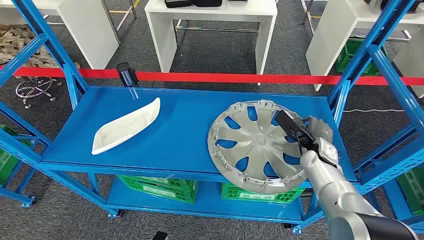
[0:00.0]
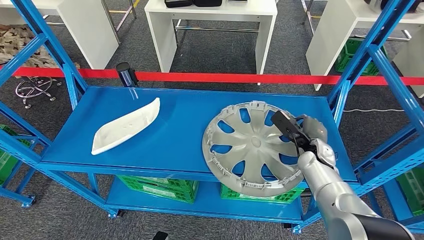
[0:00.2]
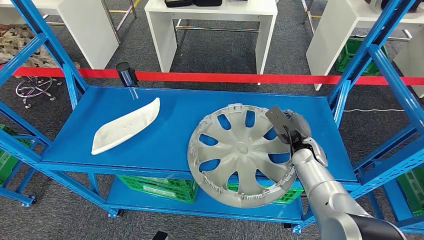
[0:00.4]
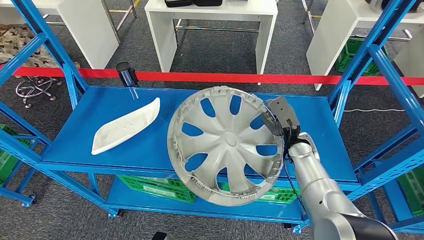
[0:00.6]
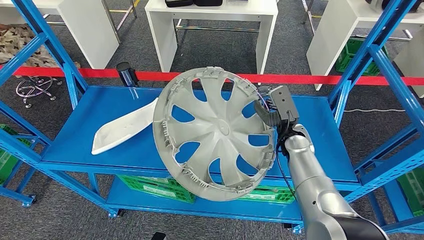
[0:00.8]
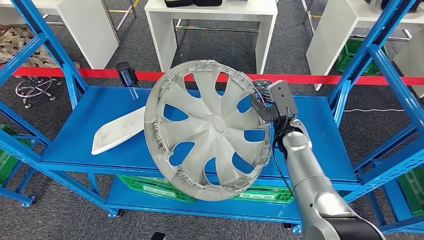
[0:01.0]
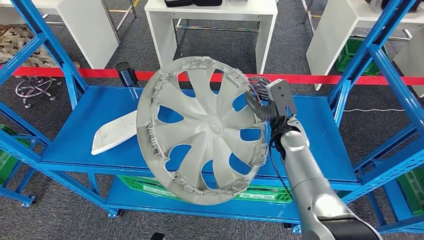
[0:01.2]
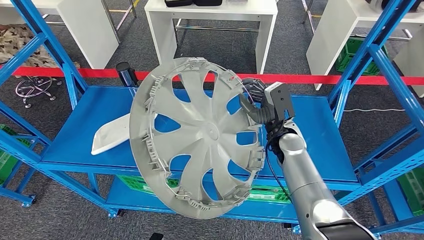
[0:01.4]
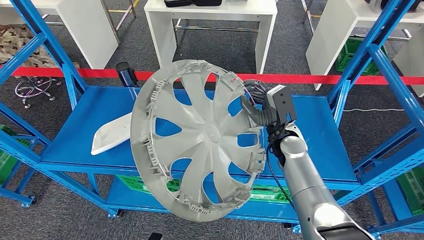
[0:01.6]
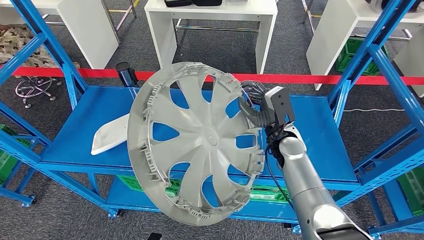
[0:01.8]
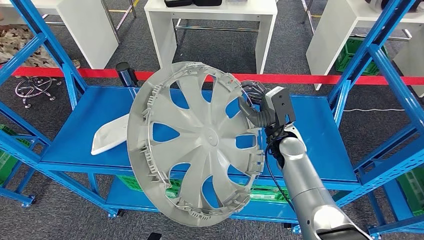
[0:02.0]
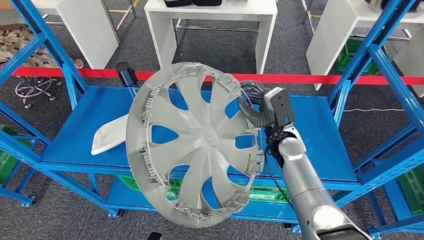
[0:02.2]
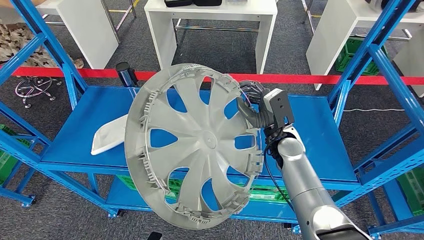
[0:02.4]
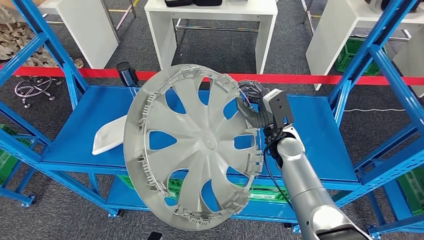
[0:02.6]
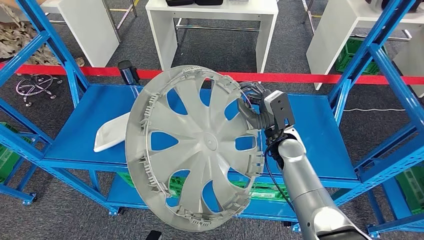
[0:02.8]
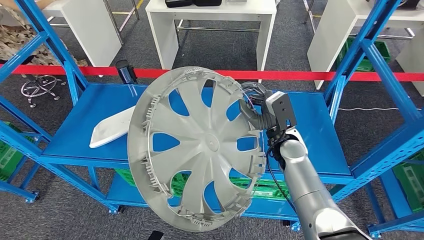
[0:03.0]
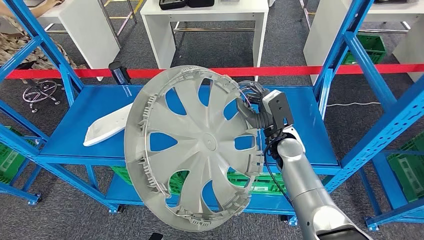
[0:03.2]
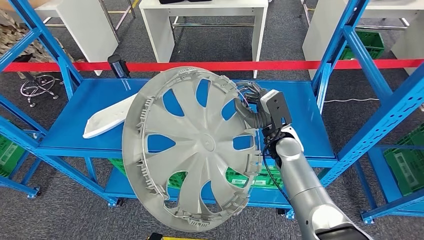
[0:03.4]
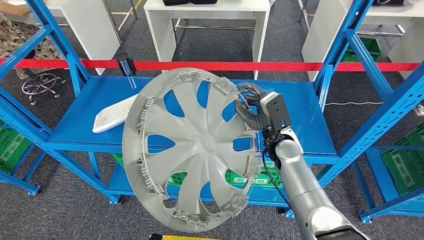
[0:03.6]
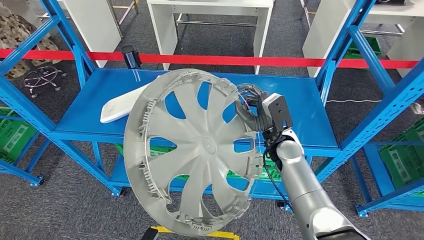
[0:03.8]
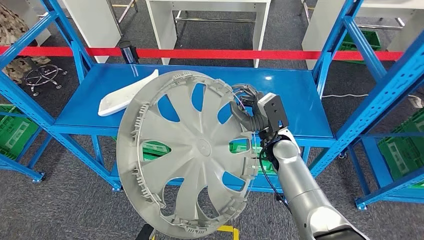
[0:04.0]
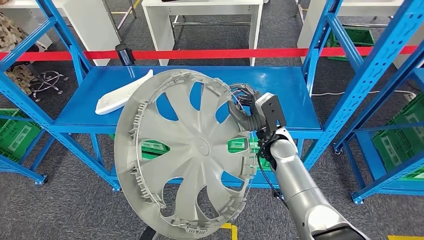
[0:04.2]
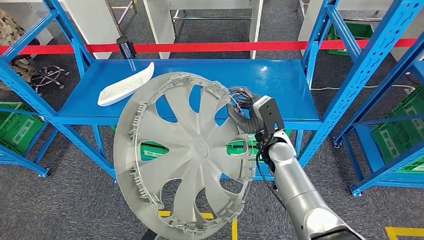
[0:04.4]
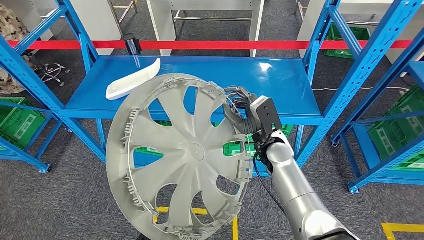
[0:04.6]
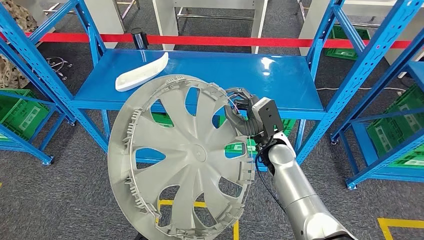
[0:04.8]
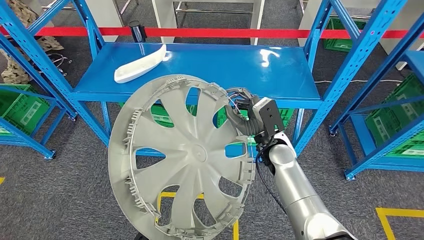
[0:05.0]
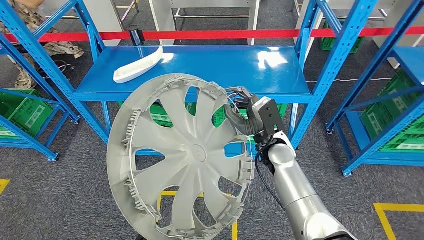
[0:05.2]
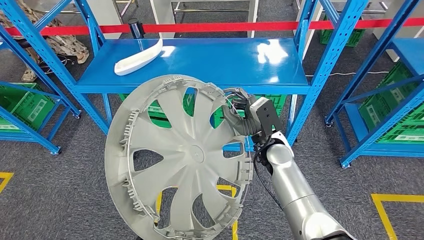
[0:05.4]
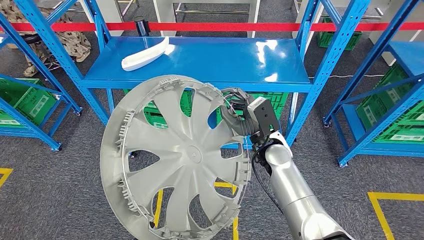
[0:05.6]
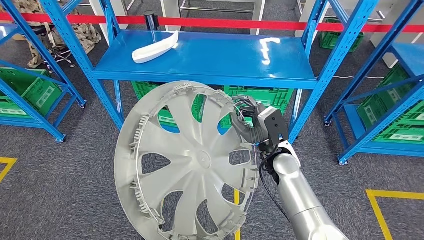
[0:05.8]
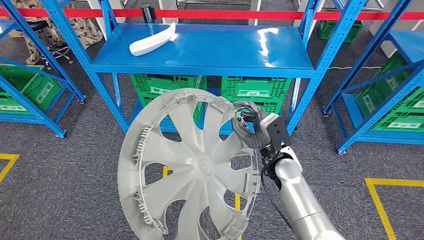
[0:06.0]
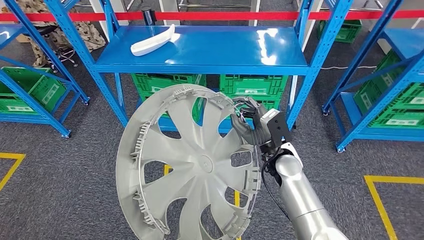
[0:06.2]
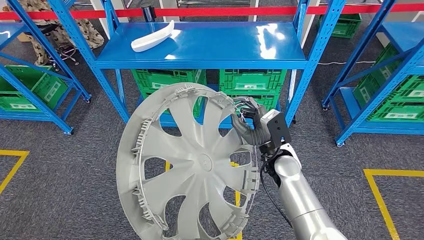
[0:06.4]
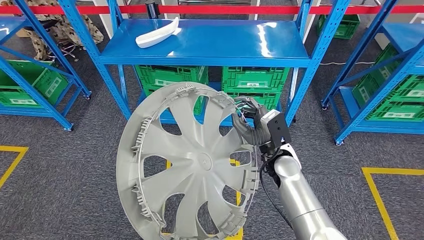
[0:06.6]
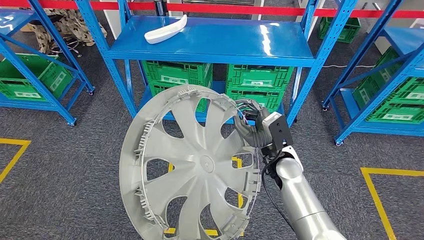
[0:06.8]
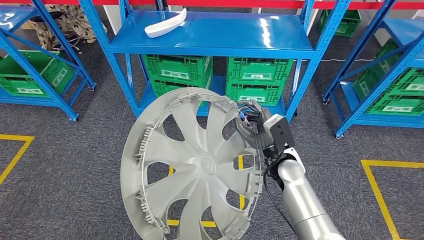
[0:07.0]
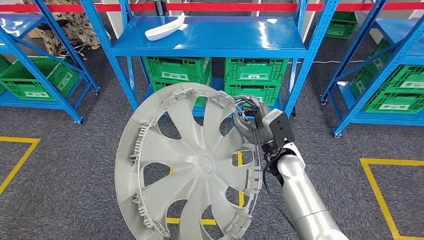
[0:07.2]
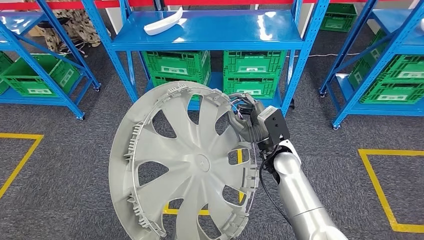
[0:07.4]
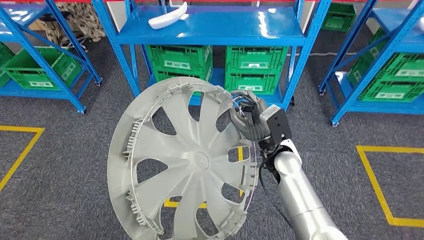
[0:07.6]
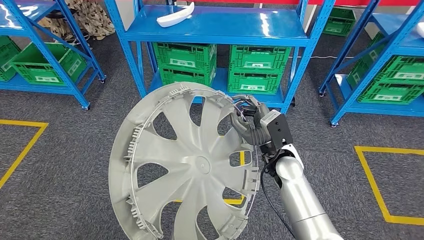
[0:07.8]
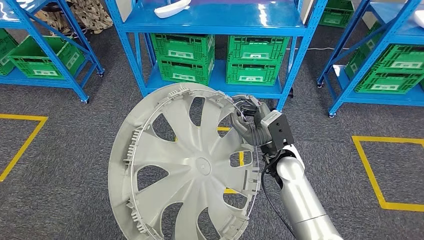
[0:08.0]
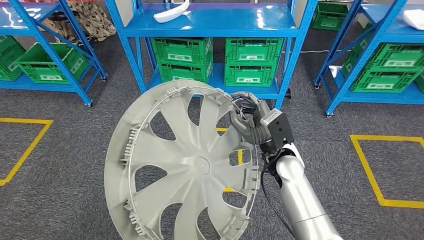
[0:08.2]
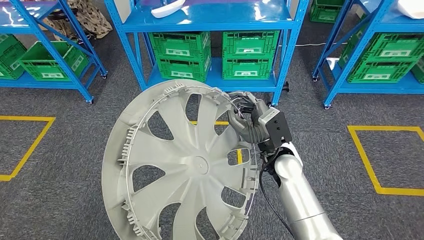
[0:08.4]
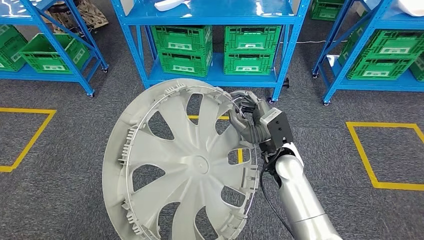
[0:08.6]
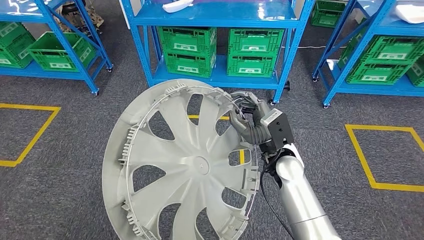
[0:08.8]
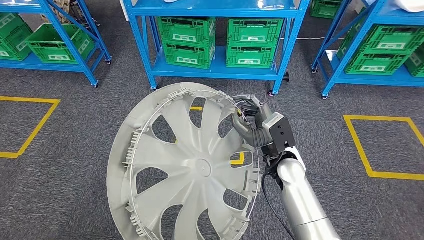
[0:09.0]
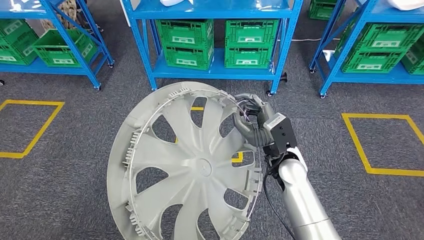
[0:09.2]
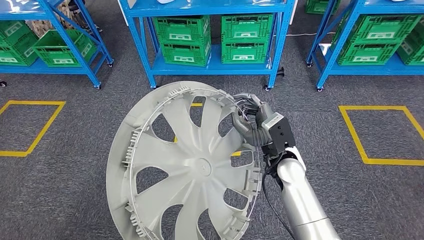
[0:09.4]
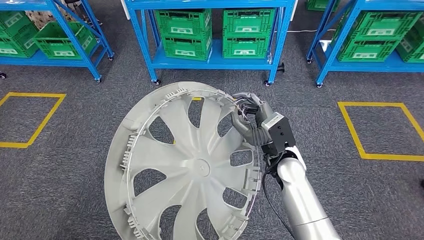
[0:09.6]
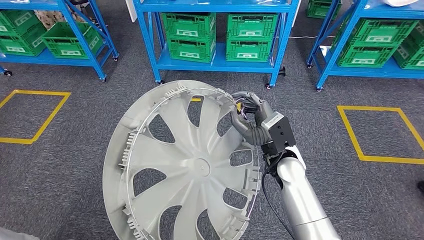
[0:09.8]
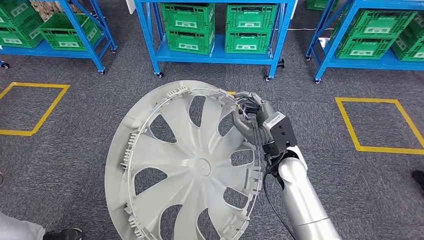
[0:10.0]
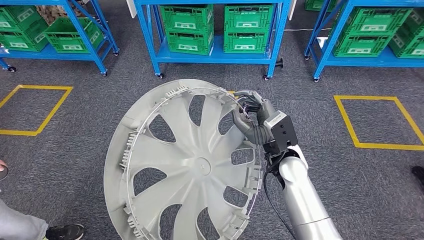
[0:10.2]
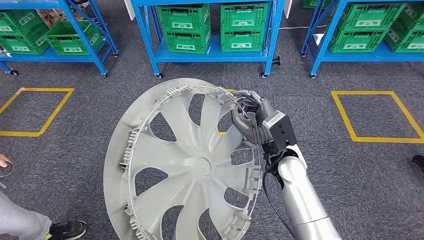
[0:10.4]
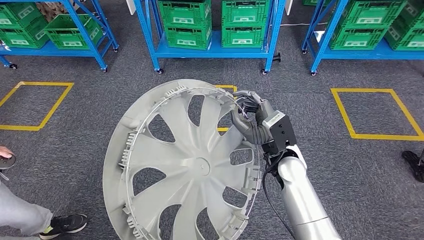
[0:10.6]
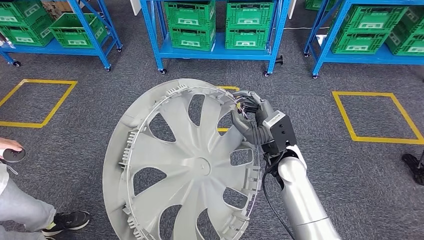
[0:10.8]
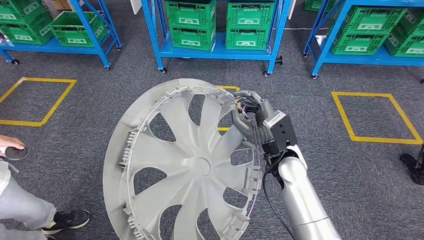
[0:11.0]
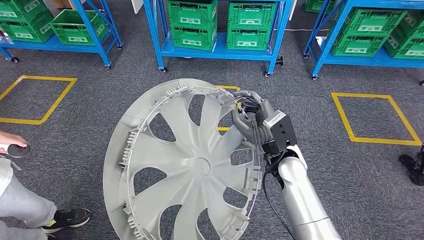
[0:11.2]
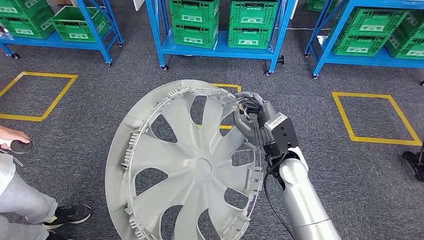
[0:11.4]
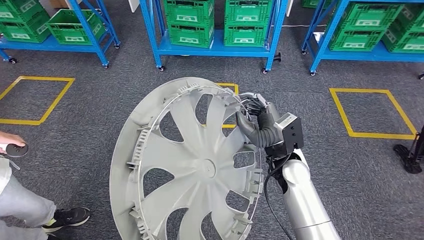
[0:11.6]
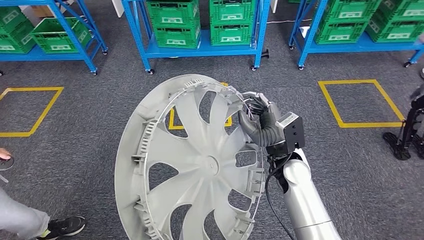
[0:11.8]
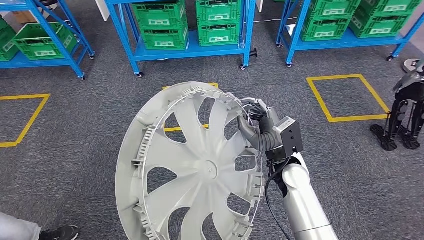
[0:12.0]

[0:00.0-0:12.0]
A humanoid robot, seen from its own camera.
Step, 0:00.0 to 0:02.2: Pick up the small parts from the shelf.

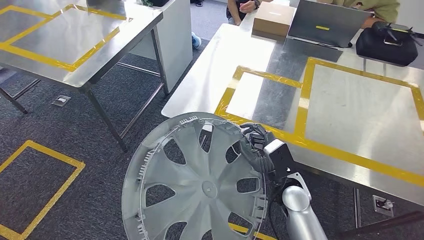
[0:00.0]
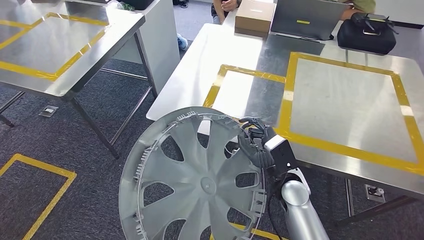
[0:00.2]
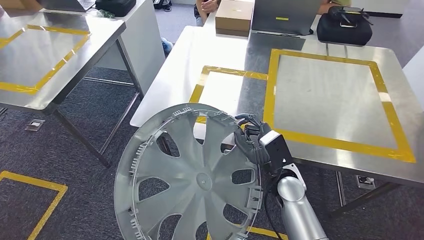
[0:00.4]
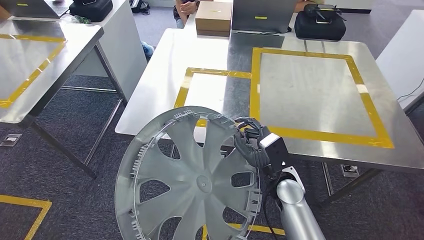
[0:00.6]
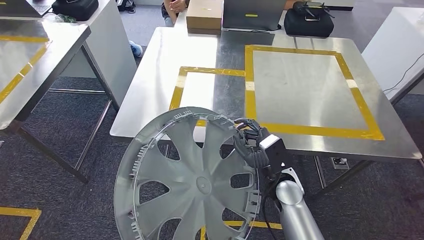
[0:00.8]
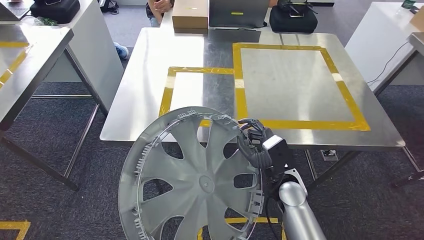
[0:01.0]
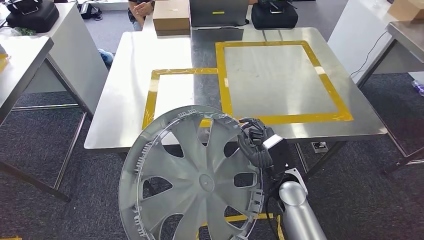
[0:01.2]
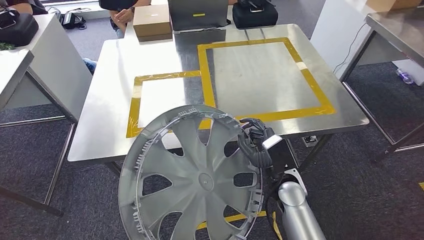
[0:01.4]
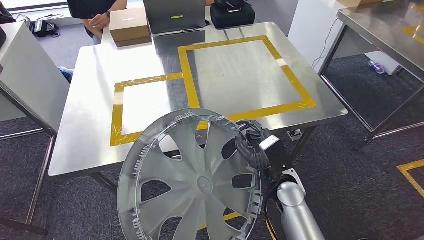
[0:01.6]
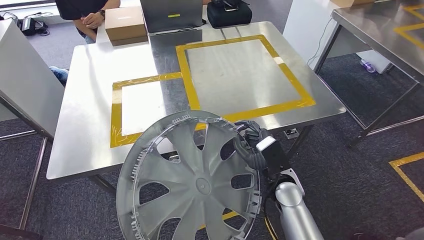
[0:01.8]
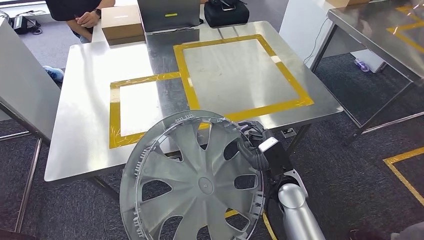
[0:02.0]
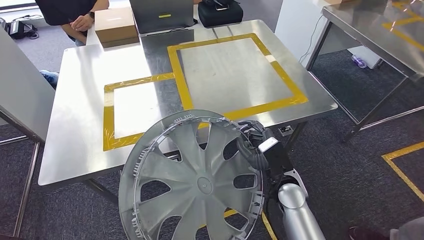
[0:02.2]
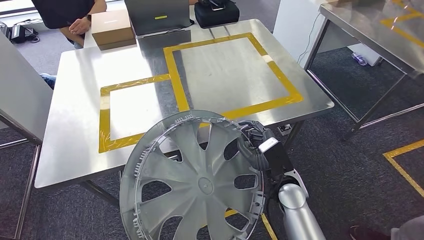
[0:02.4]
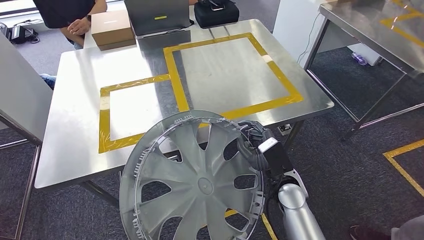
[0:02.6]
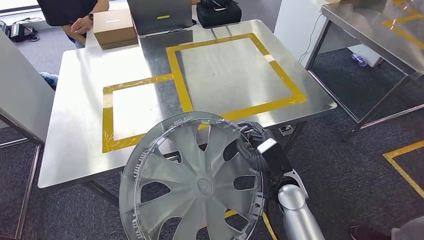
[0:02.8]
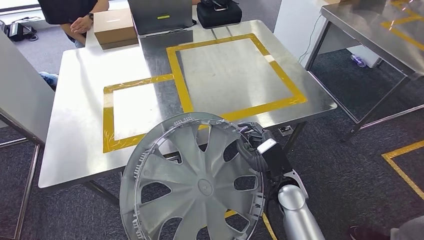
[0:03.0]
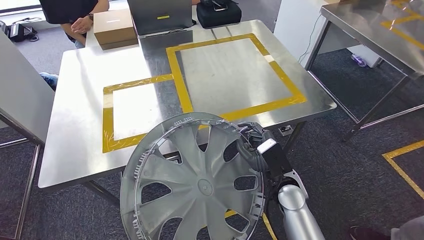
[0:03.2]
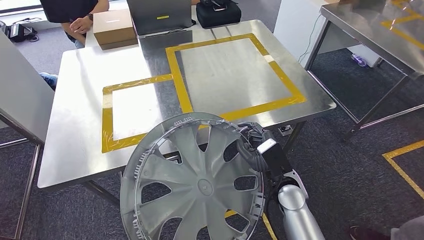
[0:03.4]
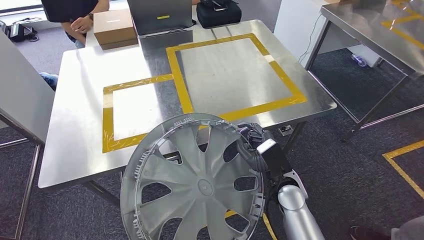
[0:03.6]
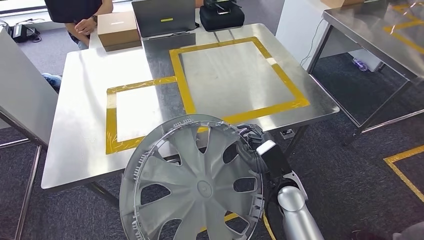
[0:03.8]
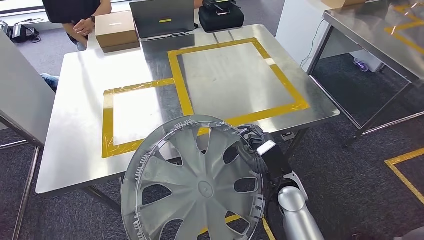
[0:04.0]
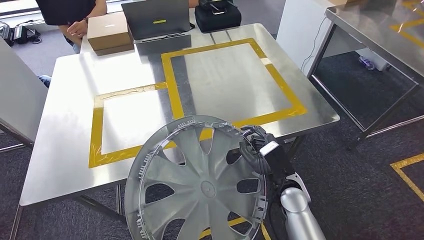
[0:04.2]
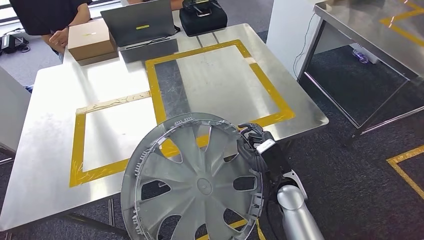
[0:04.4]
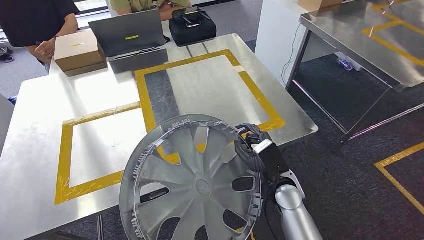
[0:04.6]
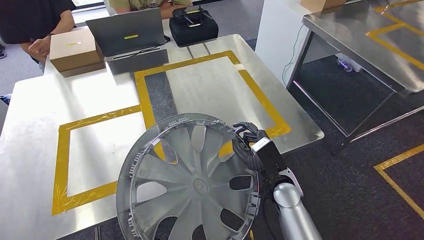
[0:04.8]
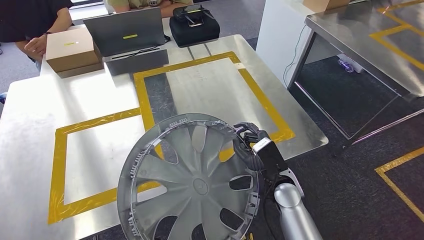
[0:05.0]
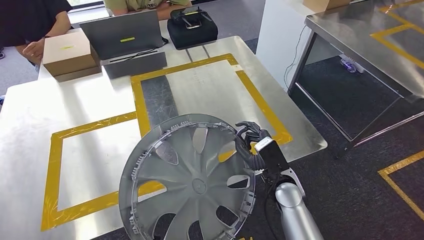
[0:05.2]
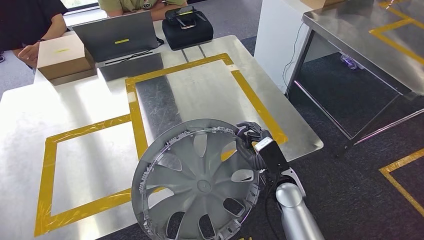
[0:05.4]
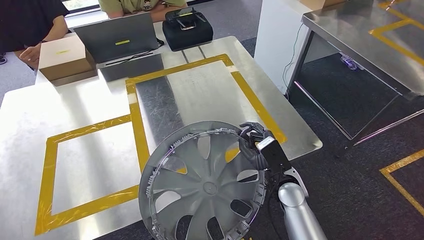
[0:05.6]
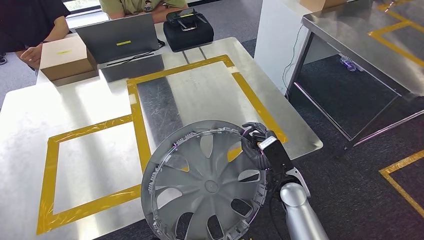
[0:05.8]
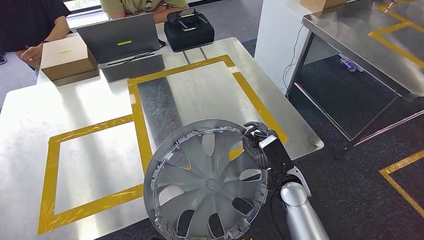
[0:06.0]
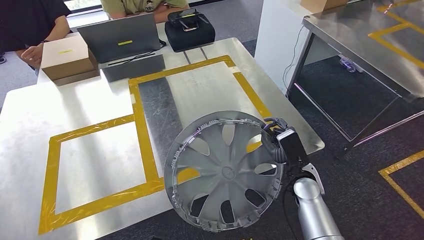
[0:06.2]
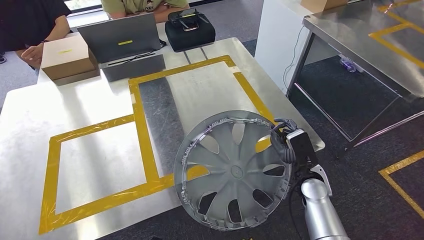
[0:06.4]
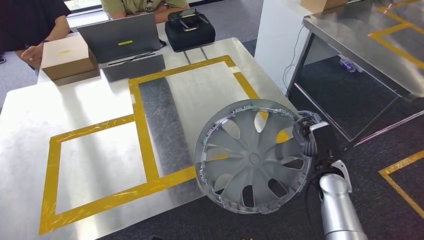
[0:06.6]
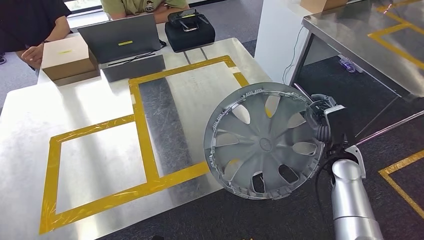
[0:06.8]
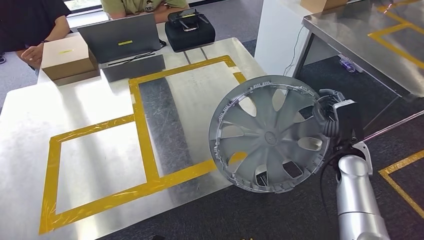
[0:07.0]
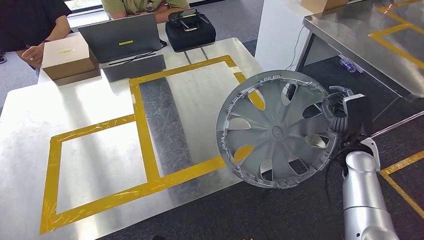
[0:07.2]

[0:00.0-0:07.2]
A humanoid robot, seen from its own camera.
Step, 0:00.0 to 0:04.8: Move the small parts to the workbench.
